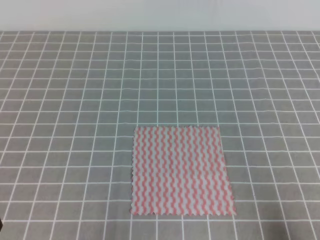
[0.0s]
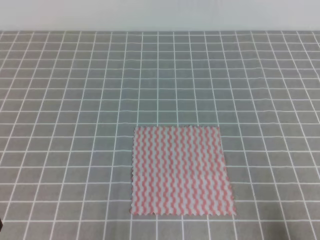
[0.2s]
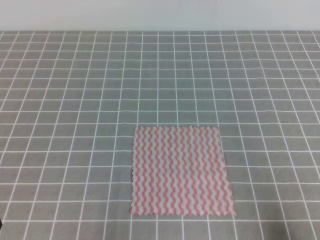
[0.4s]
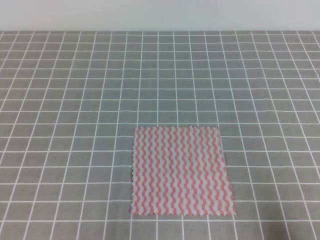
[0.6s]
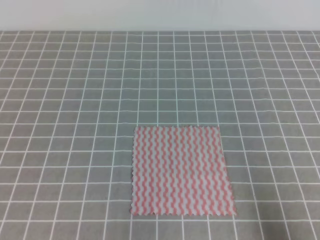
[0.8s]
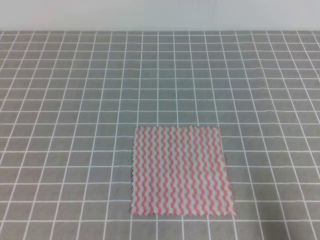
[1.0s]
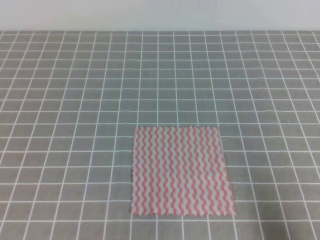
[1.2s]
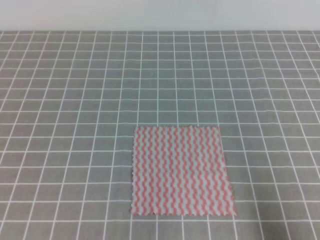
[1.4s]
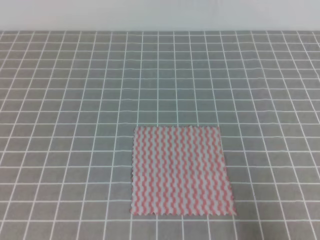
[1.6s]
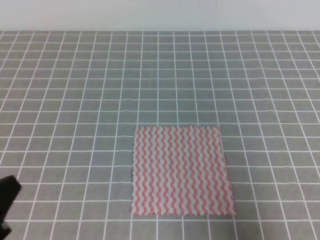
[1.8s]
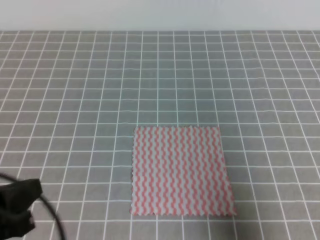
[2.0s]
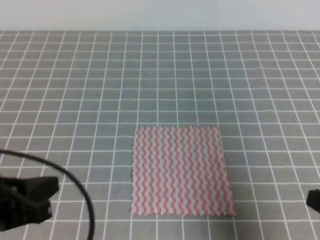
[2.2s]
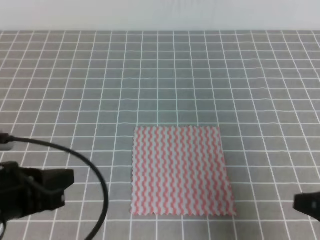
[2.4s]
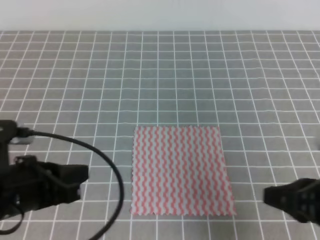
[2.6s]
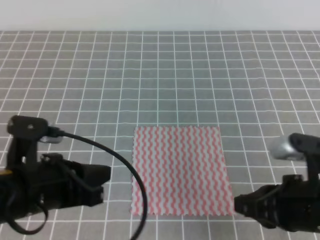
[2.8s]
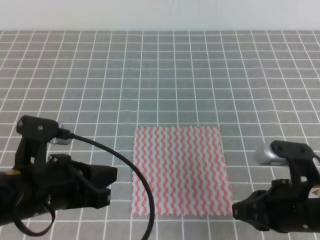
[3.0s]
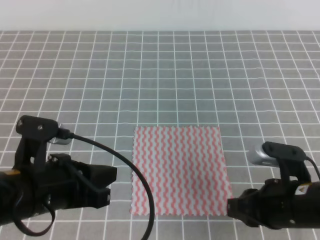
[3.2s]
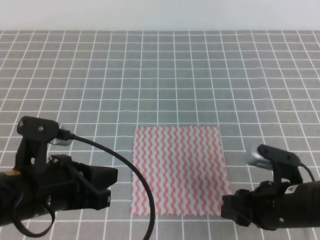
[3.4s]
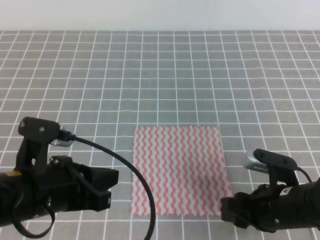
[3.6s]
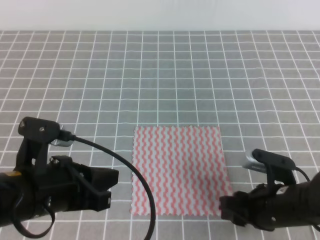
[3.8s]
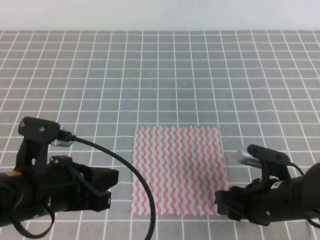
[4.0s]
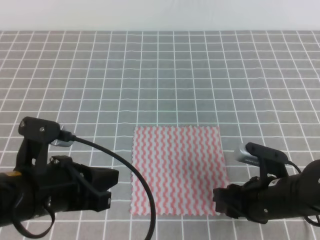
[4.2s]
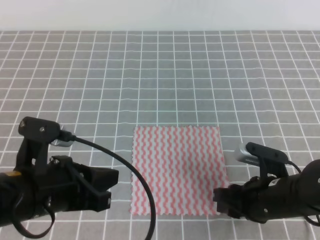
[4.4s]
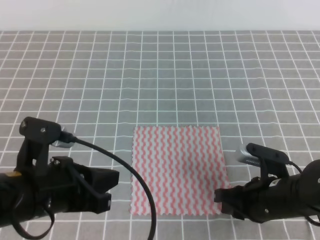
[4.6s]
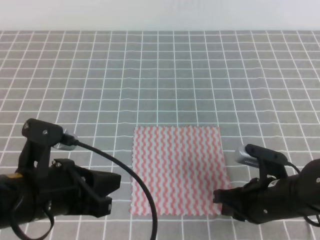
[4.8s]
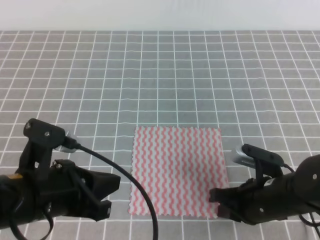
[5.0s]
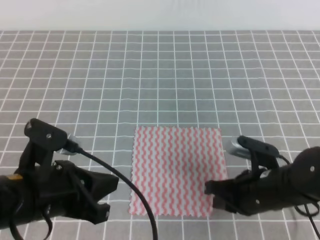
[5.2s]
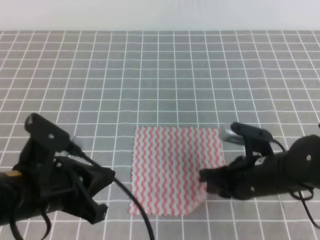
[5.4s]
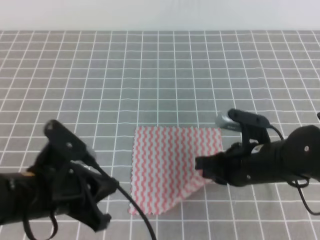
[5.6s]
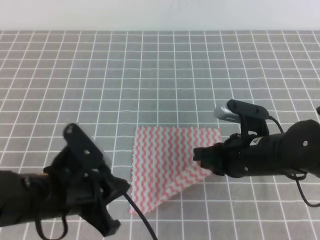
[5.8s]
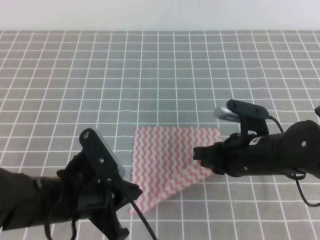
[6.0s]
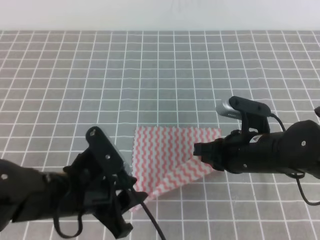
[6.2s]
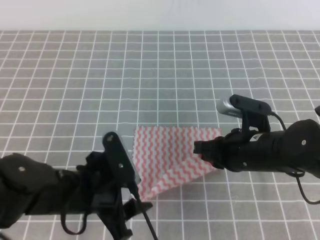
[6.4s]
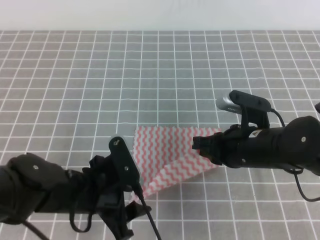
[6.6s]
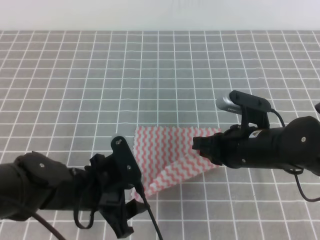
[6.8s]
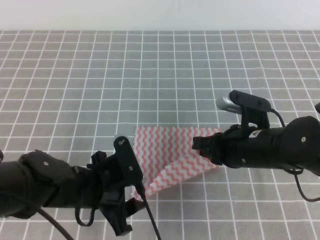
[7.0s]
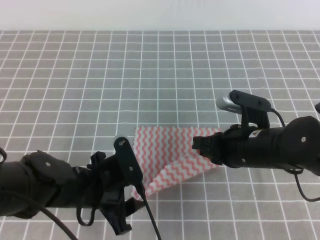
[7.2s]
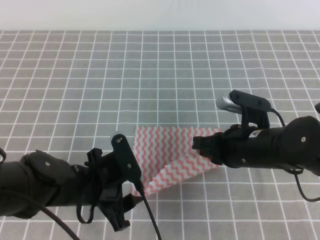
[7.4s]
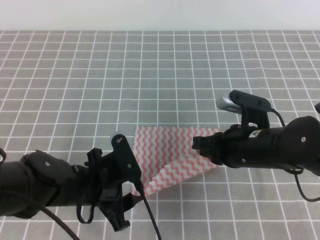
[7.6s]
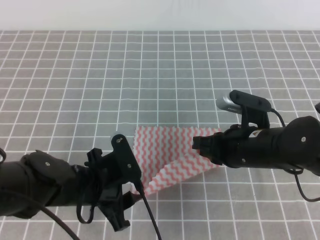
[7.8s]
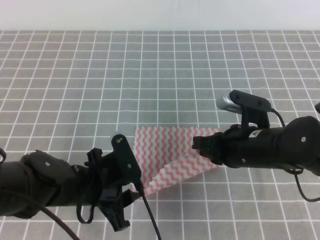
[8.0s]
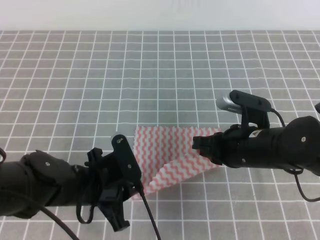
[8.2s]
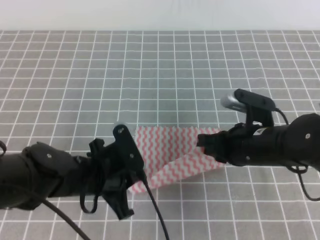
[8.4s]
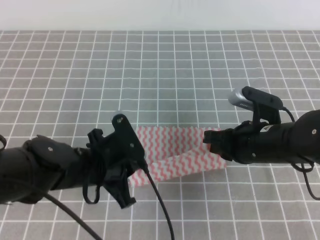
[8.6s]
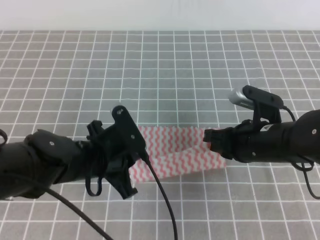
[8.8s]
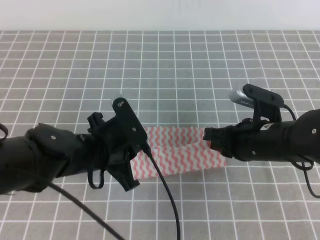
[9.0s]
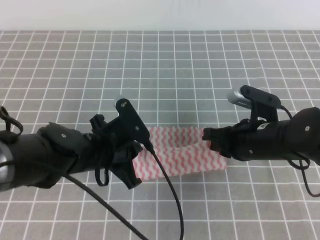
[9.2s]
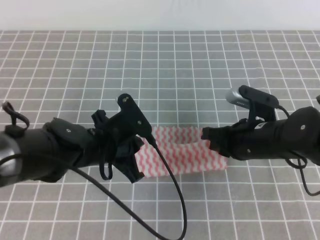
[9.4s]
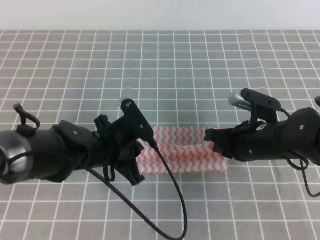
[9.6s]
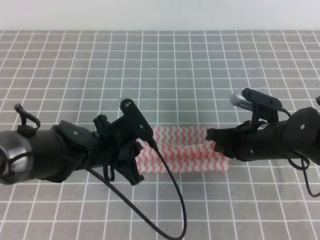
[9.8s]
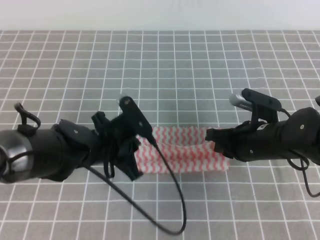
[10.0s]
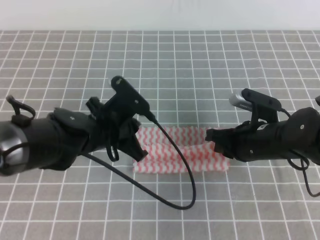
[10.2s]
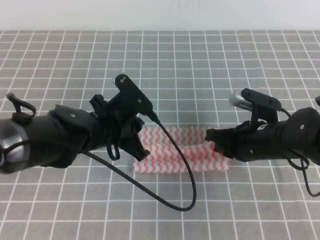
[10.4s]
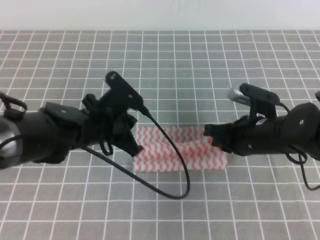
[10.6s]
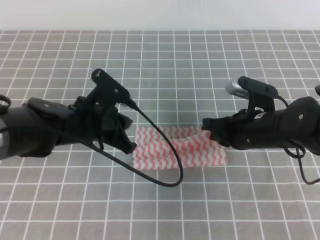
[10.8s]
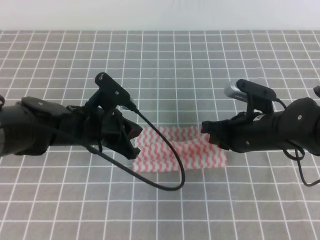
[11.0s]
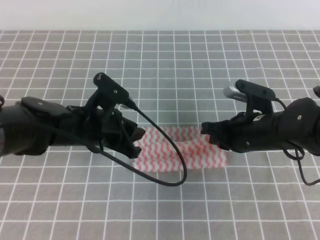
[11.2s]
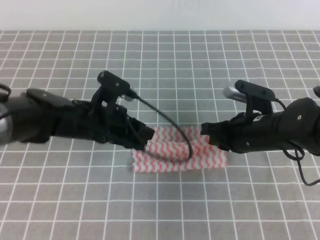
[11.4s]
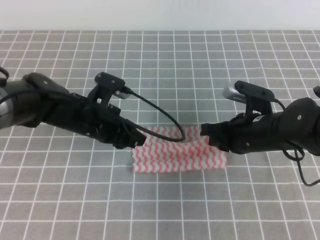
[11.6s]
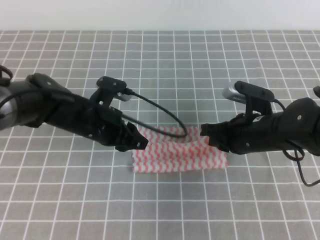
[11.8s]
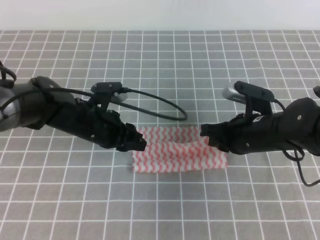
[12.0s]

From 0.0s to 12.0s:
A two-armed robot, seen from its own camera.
From 0.0s to 1.6s: The right gripper heads upward, covering about 5 cm.
From 1.6s to 3.0s: The left gripper is displaced forward and to the right by approximately 15 cm. The right gripper travels to the left and forward by approximately 15 cm.
From 3.0s to 4.4s: The right gripper goes some 5 cm downward, and opens up.
From 4.4s to 6.0s: The right gripper goes roughly 5 cm upward, and closes up.
From 6.0s to 7.6s: The left gripper shifts about 5 cm downward, and opens.
From 7.6s to 9.0s: The left gripper closes its fingers.
From 9.0s to 10.4s: There are only small adjustments of the grippers.
From 10.4s to 12.0s: The left gripper opens.

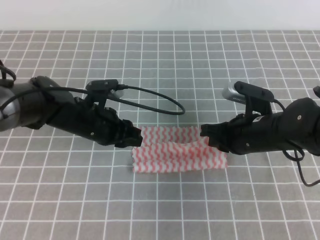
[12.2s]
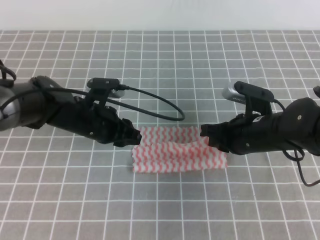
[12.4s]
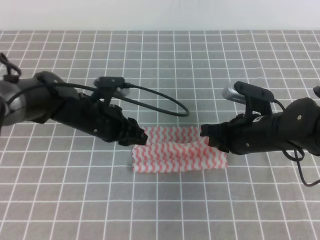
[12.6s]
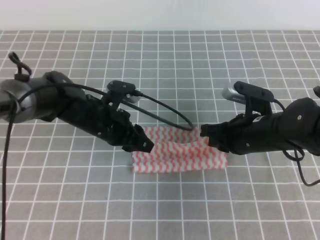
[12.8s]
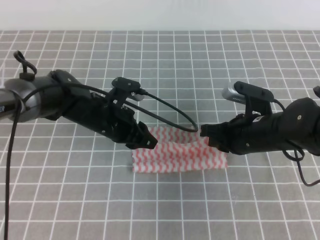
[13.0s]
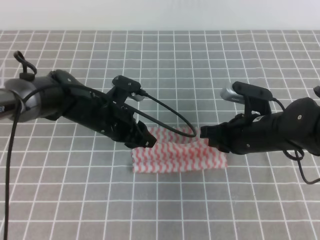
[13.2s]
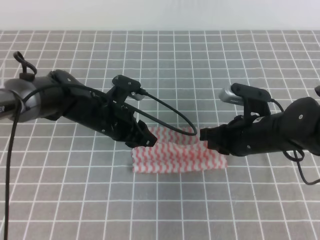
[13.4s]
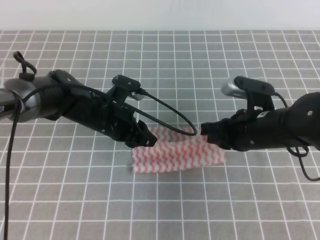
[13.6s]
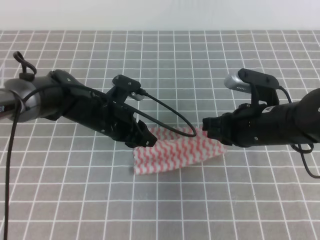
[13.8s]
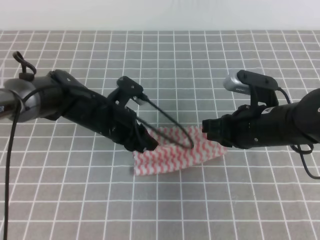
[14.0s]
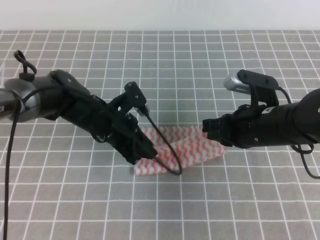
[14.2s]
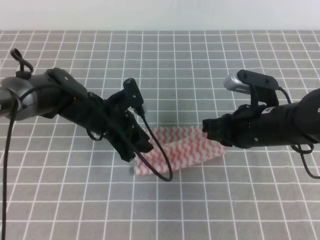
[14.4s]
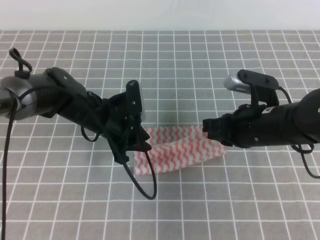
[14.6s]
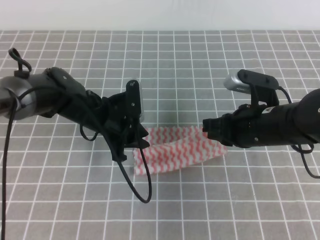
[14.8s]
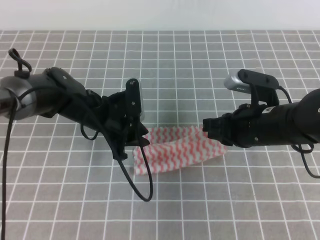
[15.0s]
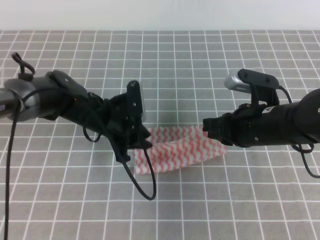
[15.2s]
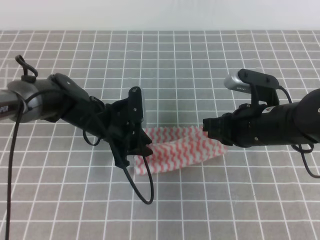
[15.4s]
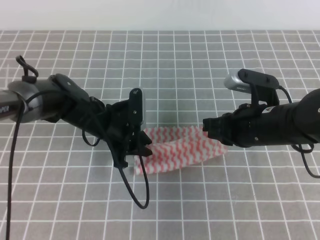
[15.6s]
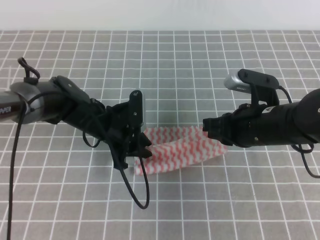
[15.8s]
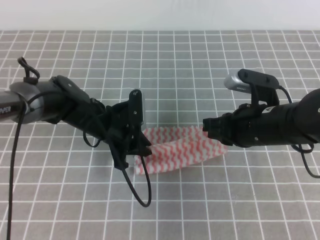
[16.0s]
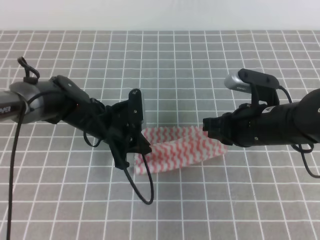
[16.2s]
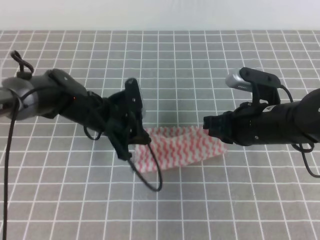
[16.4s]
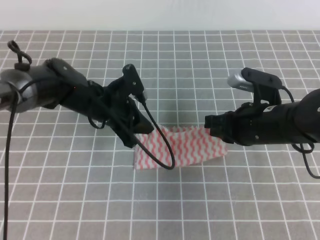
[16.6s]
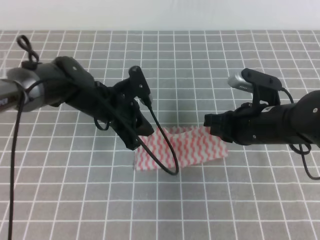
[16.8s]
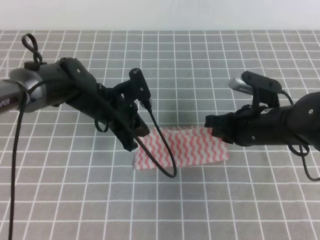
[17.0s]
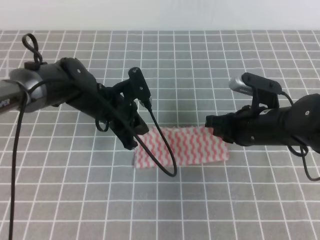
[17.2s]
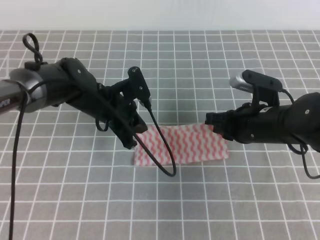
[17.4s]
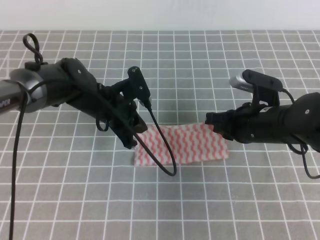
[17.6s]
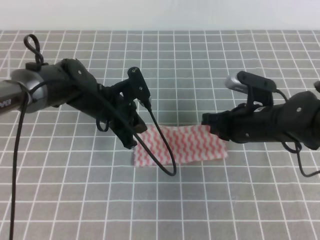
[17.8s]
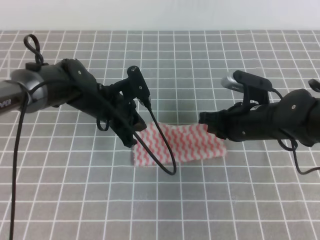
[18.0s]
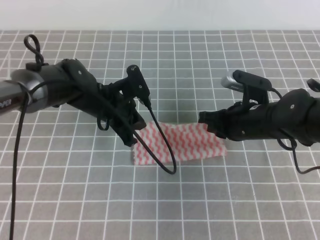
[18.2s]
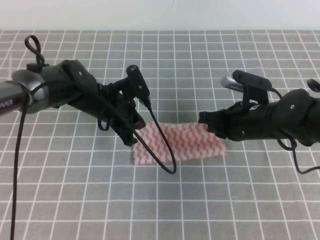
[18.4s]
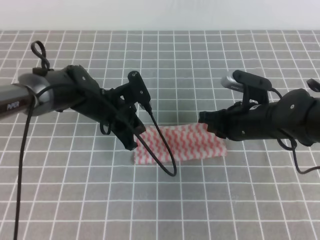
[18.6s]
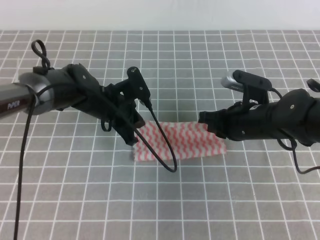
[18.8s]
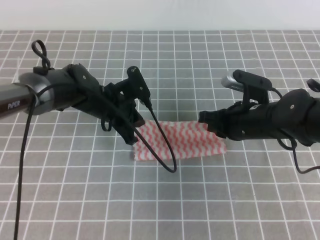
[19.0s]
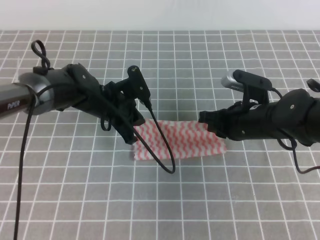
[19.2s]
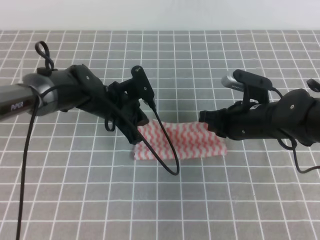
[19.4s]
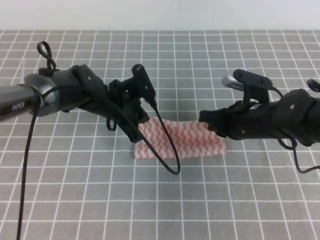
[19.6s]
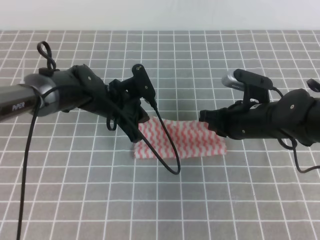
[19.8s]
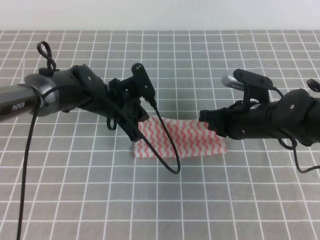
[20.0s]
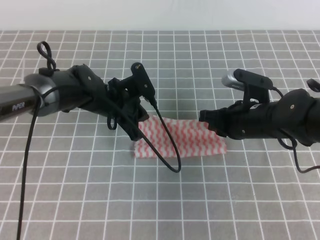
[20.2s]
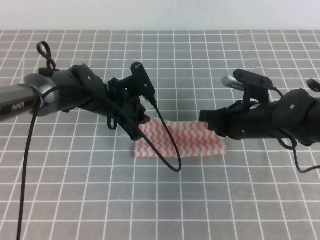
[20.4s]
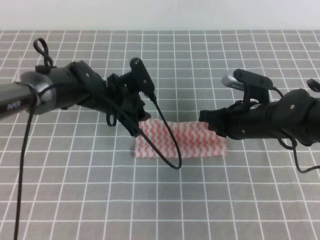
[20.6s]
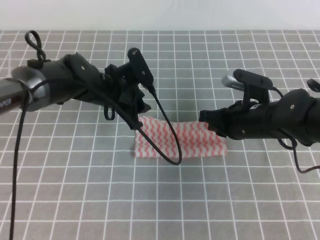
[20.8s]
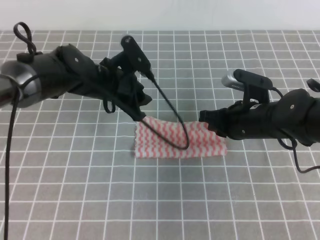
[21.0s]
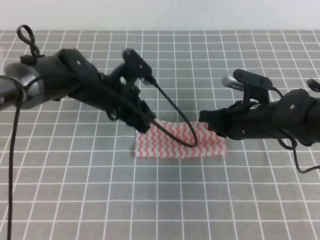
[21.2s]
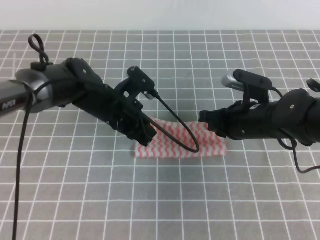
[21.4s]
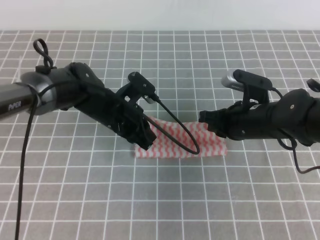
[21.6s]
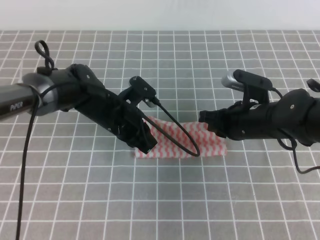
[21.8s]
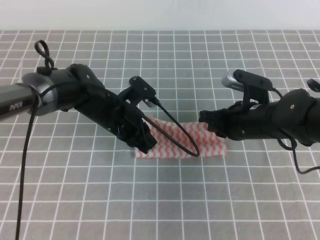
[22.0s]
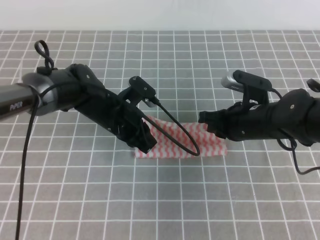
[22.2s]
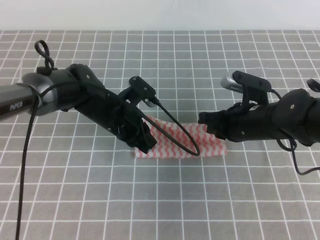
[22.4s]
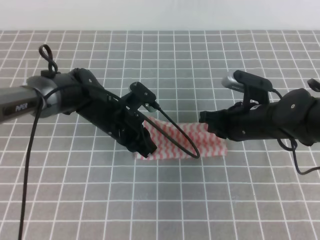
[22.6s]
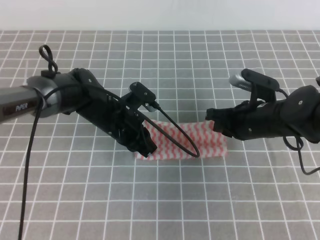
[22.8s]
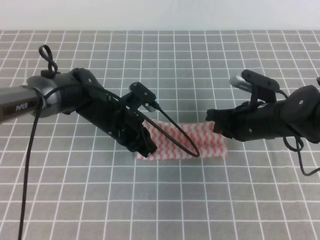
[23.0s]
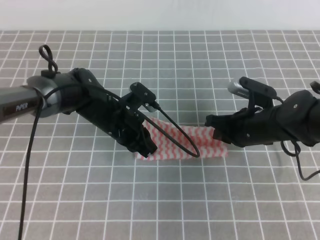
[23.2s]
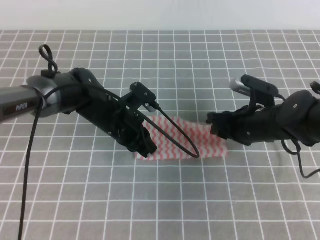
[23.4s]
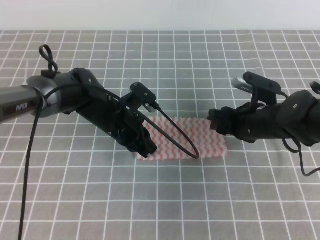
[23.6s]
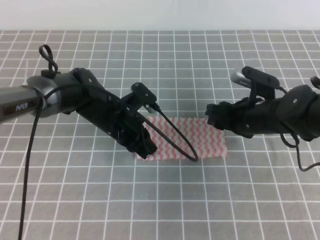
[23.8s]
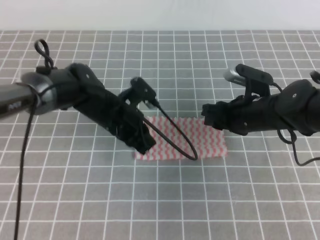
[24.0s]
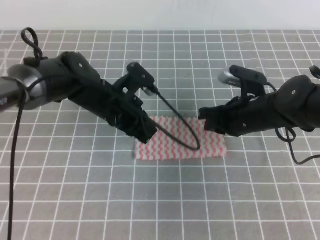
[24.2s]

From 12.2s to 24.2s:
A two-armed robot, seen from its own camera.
From 15.2s to 16.6s: The left gripper closes.
From 16.6s to 19.8s: The grippers stay close to where they were, moving slightly.
From 19.8s to 21.2s: The left gripper opens its fingers.
From 21.2s to 22.6s: The left gripper closes.
From 22.6s to 24.2s: The right gripper opens its fingers.
